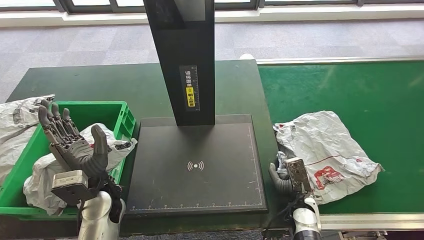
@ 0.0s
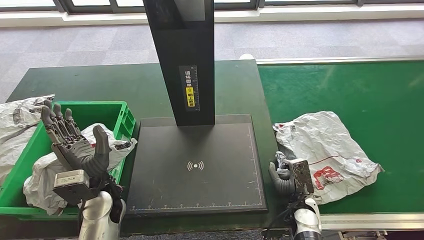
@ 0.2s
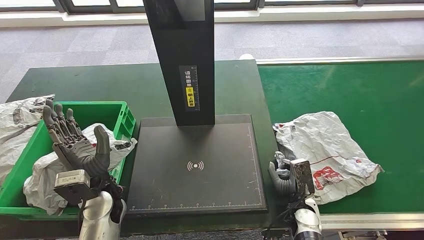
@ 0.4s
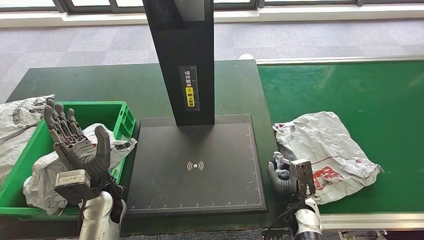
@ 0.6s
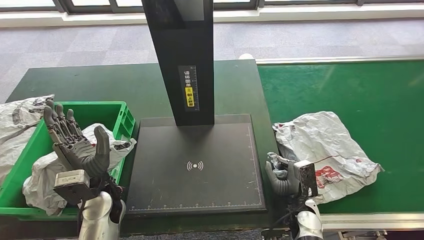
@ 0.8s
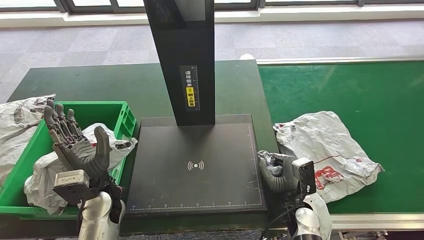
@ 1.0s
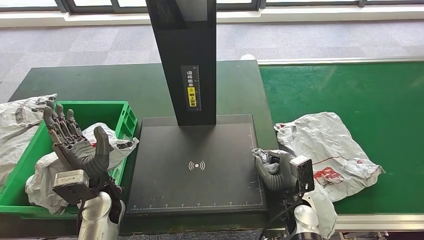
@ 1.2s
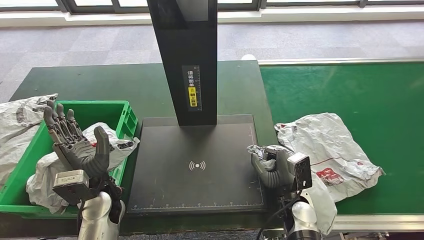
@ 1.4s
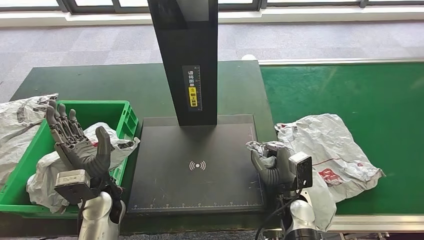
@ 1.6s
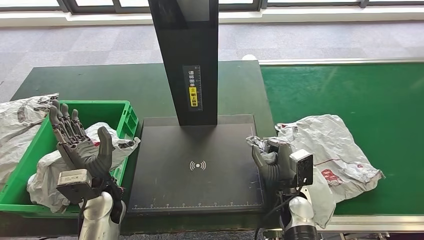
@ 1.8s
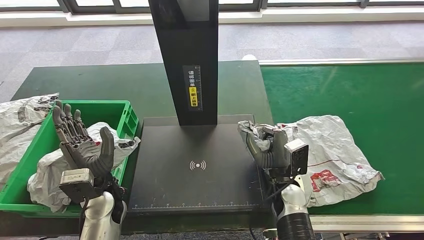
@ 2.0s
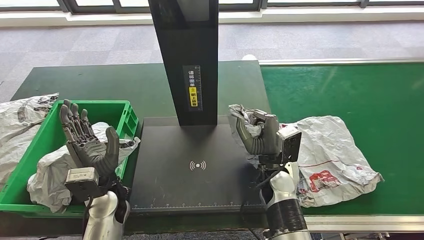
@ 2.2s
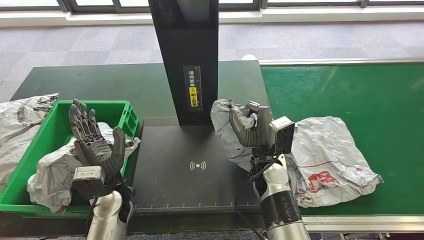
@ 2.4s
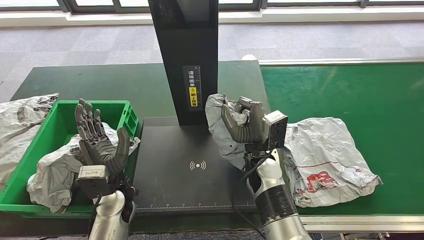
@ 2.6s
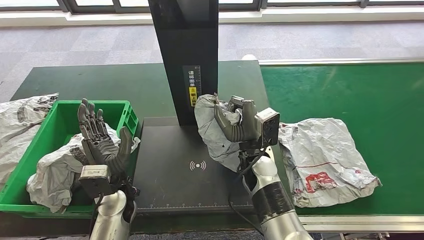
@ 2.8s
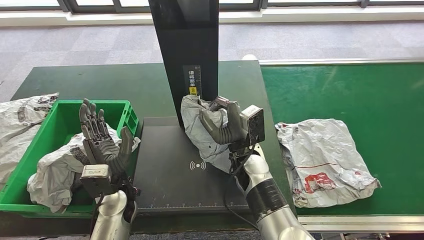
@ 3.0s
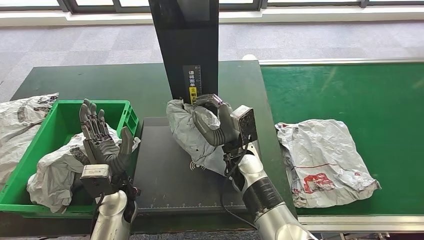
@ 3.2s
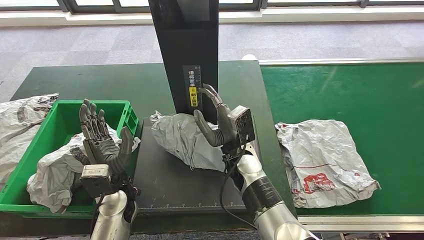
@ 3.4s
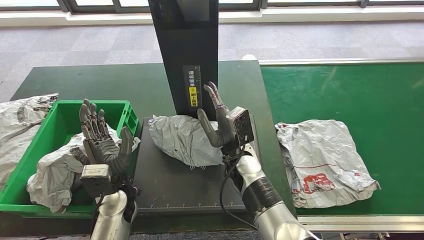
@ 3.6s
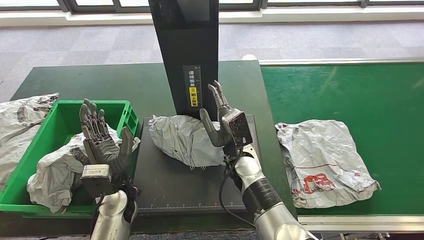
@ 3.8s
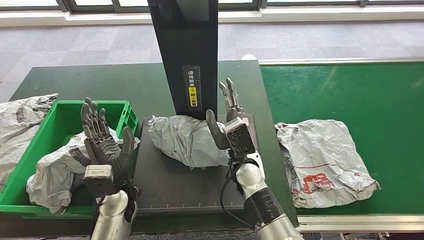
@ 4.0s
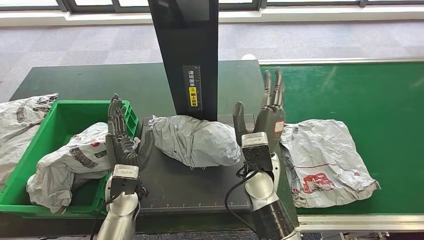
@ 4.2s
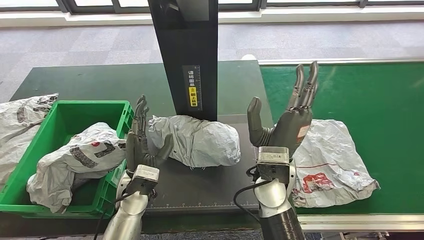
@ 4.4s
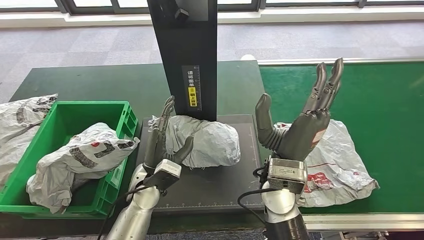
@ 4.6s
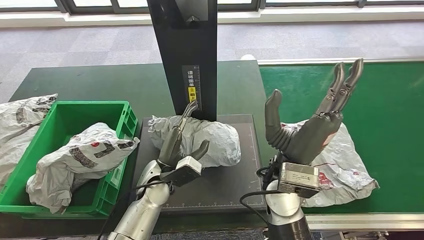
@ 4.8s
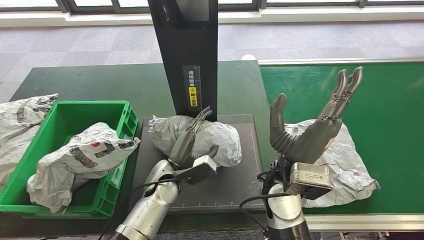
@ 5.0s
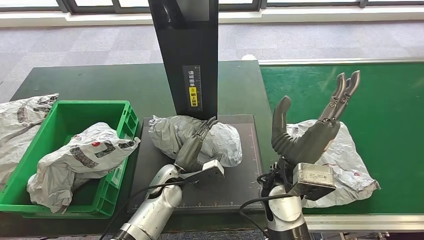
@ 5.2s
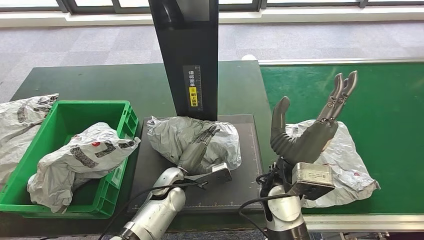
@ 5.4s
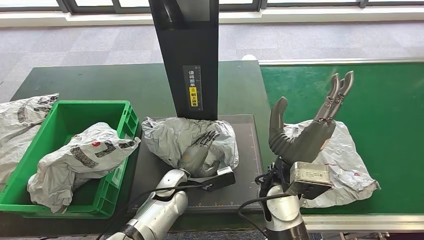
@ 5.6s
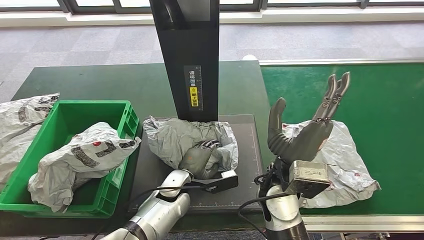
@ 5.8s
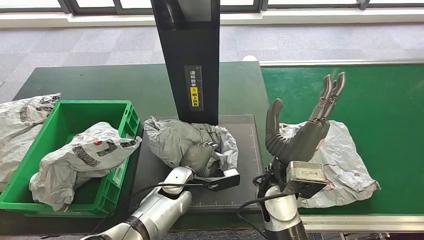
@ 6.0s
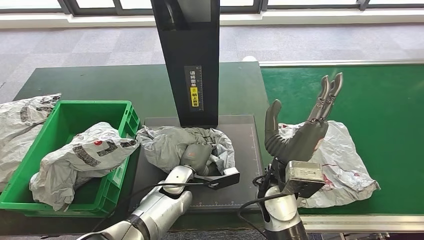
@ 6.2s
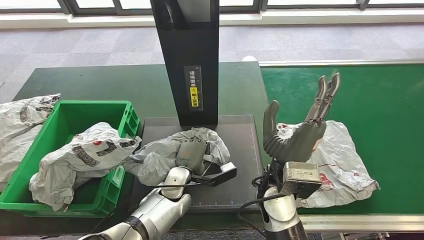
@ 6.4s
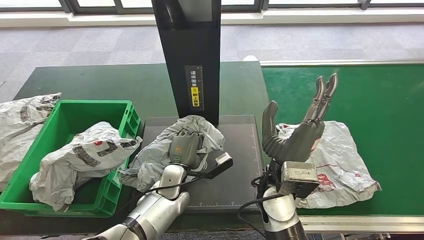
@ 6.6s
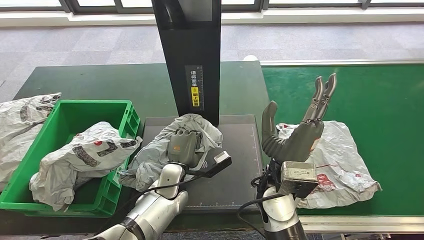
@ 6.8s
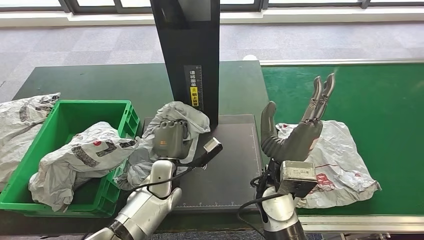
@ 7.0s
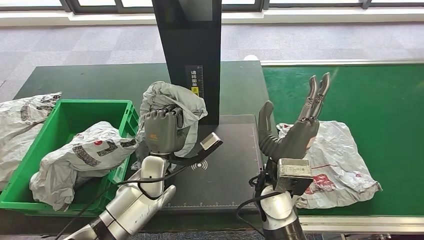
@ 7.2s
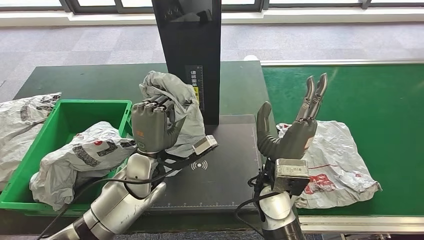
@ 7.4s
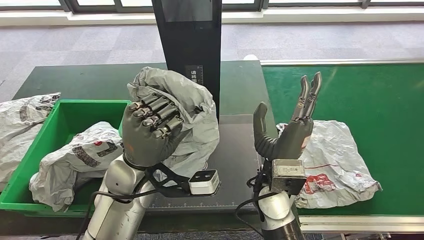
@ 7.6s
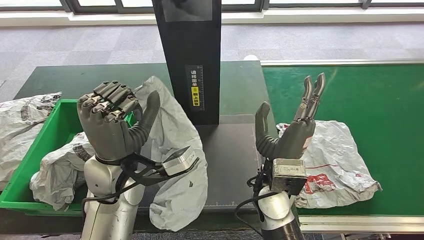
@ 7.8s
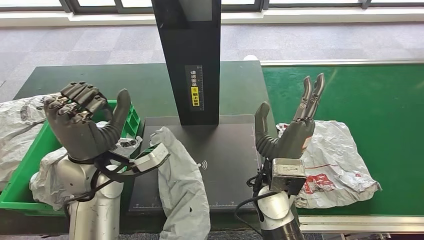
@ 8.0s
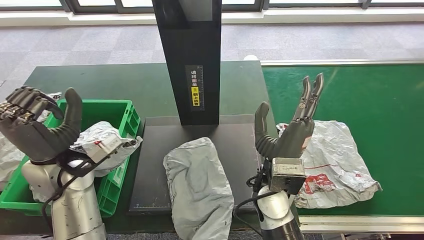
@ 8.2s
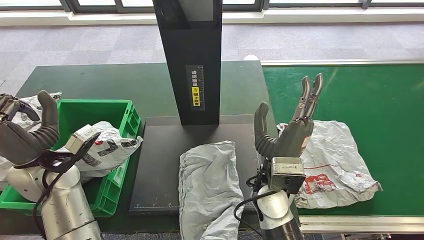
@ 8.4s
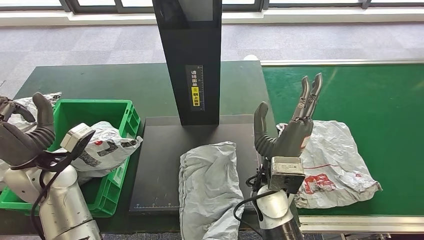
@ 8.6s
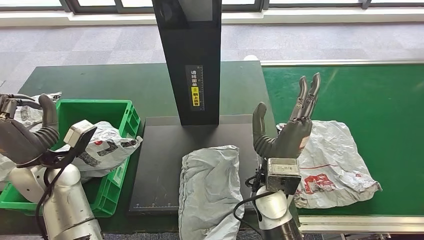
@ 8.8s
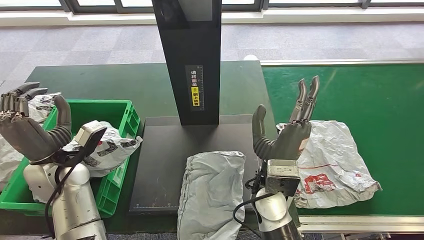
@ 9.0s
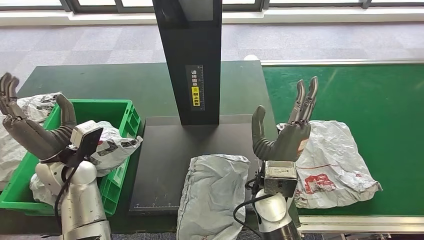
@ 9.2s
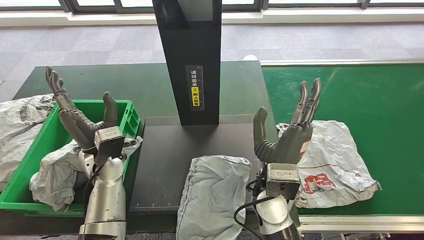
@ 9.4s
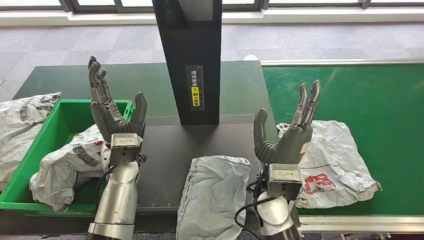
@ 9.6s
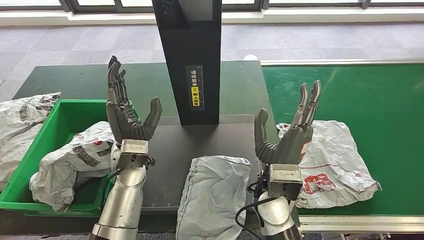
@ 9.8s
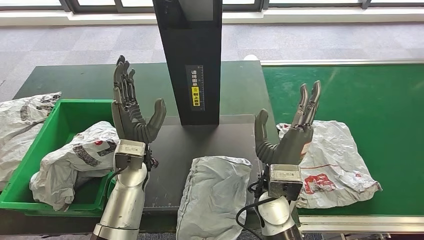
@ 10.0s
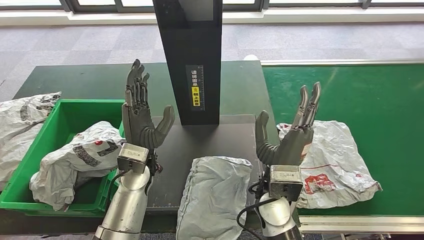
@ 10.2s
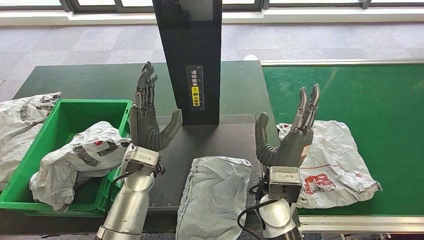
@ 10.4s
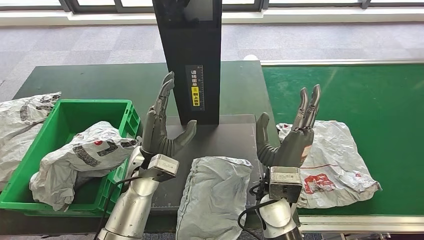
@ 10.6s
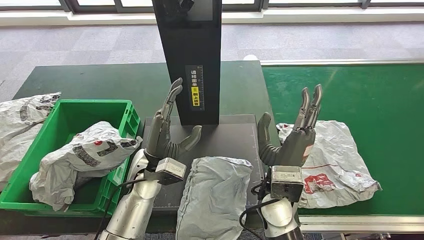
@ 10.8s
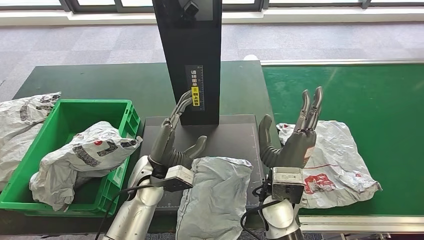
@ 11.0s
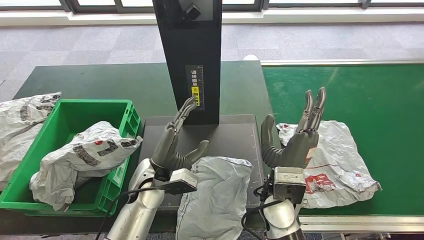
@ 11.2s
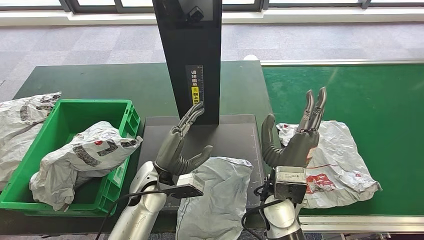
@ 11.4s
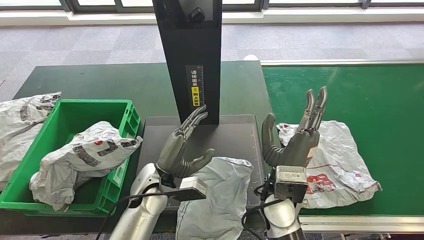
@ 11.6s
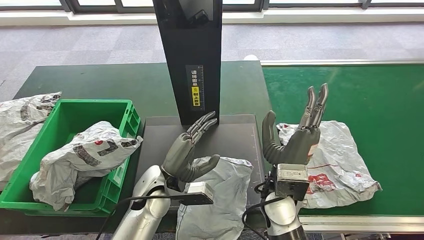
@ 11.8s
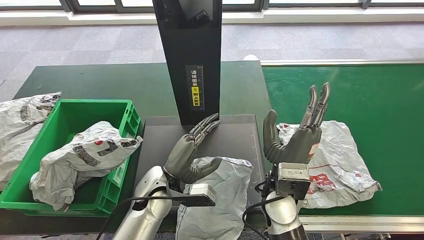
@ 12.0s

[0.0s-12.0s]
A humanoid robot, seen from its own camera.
Step, 0.6s to 2.2s: Pick up the parcel from the conveyor belt.
Step, 2.4s to 5.2s: Place the parcel onto the inbound machine.
0.0s to 1.6s: The right hand shifts approximately 5 cm upward.
3.0s to 4.4s: The right hand heads upward, covering some 5 cm.
9.0s to 10.4s: The left hand travels to the right by some 20 cm.
10.4s to 12.0s: The left hand shifts approximately 5 cm downward.

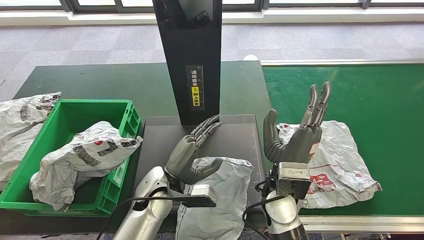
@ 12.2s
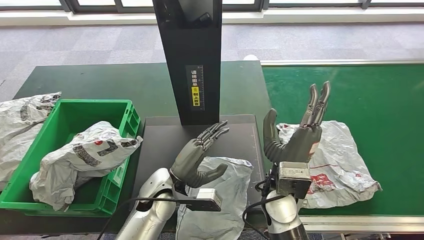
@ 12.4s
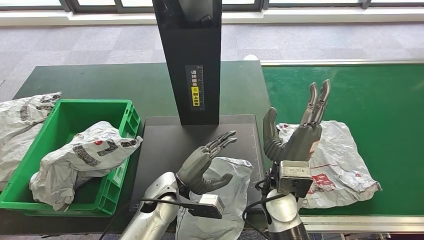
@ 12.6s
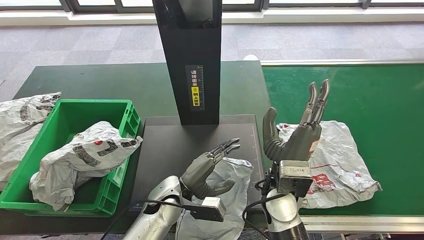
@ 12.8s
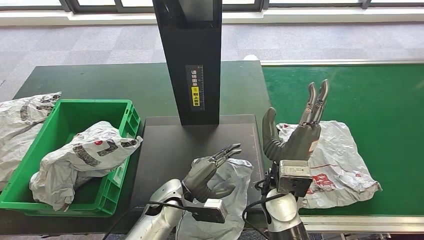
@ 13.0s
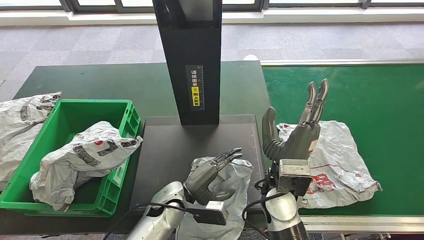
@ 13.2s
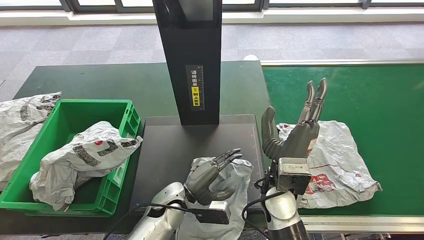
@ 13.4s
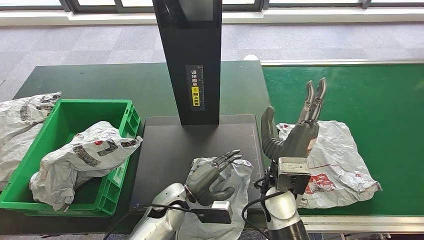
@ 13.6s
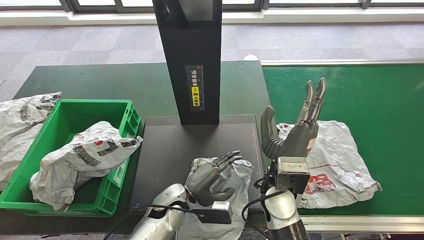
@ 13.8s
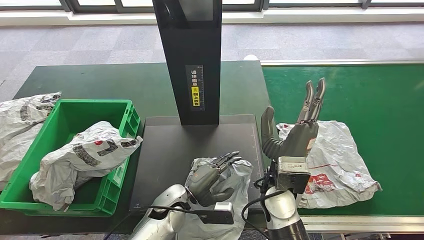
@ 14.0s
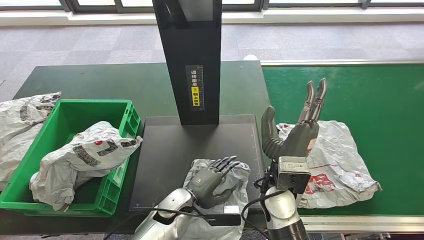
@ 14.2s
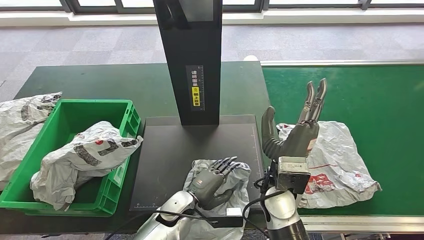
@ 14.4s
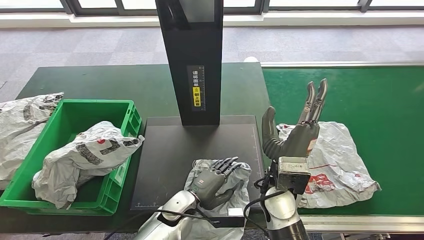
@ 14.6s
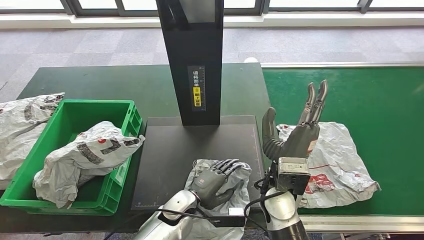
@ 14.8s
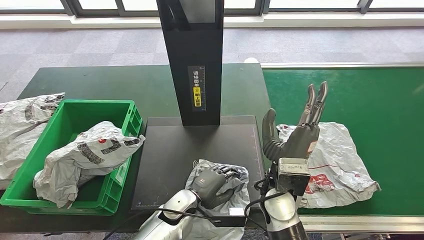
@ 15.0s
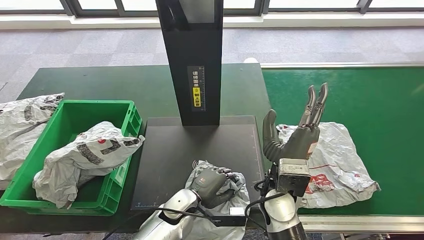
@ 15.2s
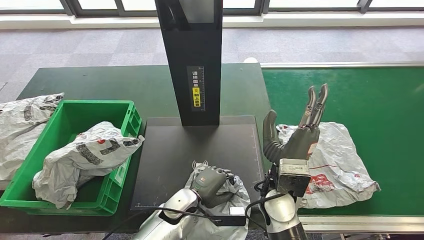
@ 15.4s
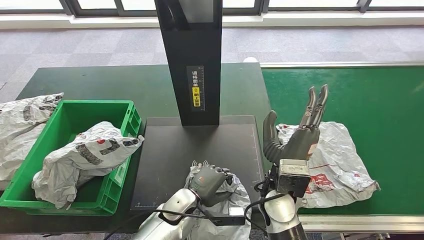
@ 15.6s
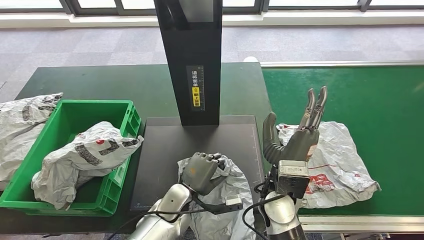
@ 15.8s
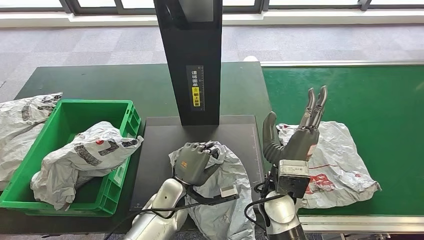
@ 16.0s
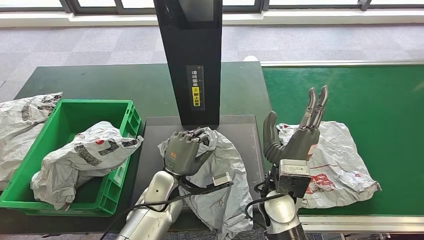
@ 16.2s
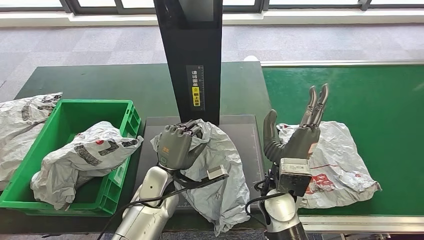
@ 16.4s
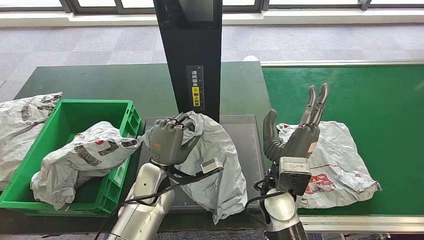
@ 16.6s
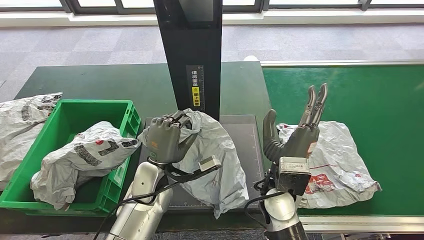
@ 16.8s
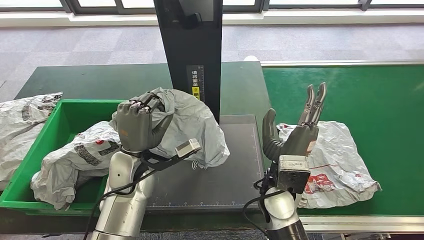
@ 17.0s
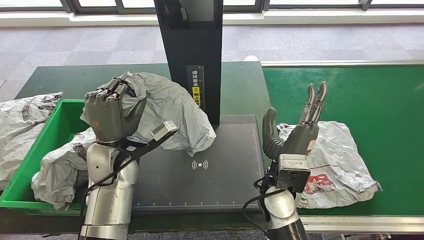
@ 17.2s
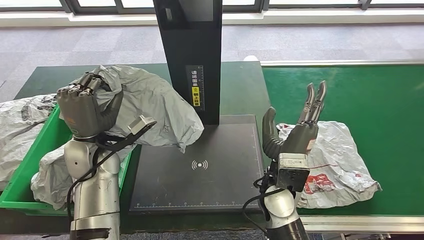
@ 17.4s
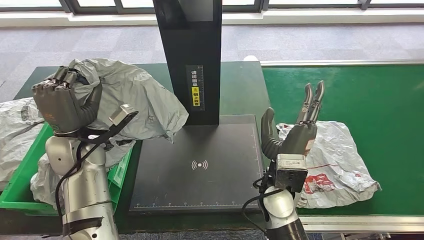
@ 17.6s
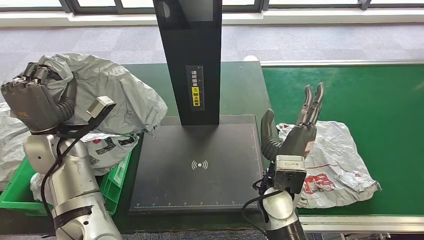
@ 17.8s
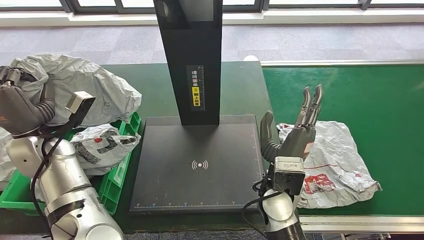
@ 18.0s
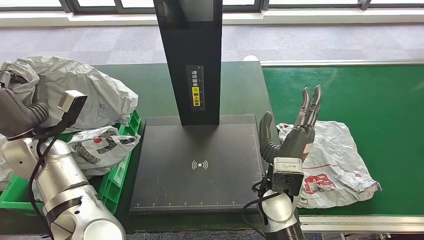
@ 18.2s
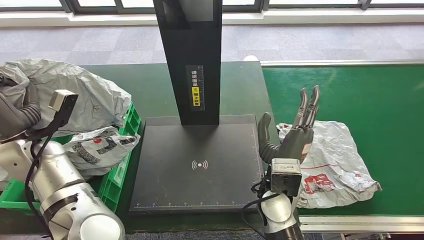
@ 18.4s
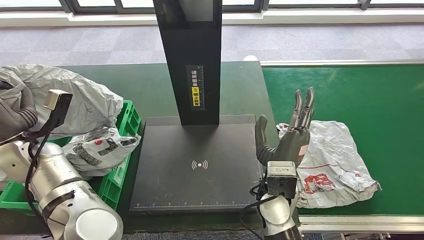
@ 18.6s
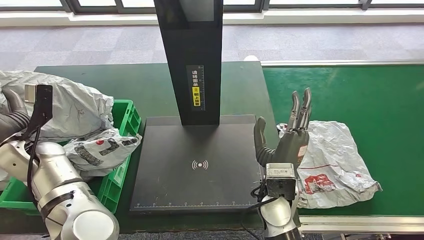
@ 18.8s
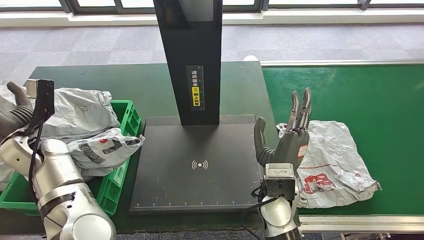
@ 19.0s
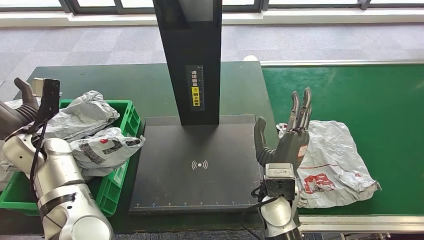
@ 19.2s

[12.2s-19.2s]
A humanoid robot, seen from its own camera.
Step, 14.4s to 17.0s: Pick up the parcel from the inbound machine.
12.2s to 13.6s: The left hand travels downward by roughly 5 cm.
